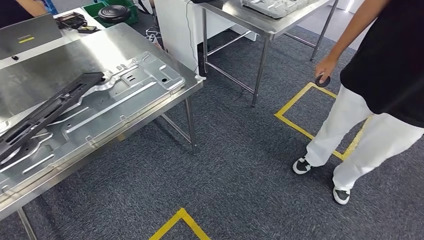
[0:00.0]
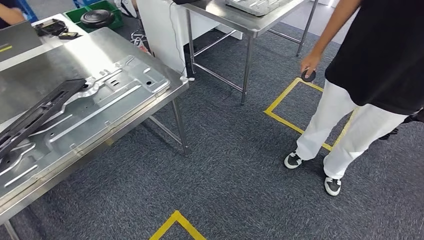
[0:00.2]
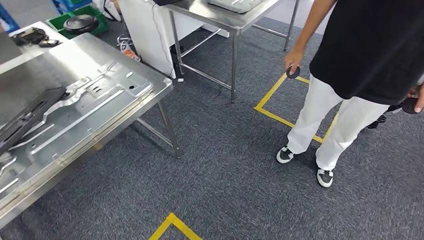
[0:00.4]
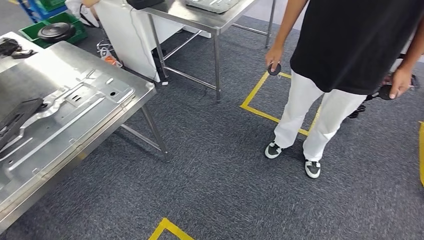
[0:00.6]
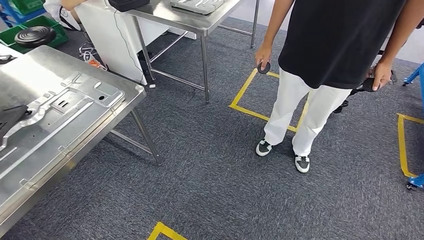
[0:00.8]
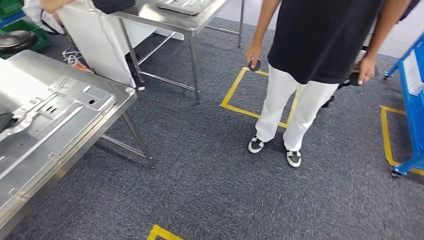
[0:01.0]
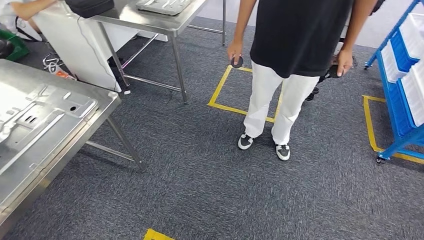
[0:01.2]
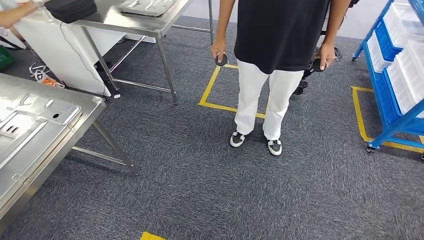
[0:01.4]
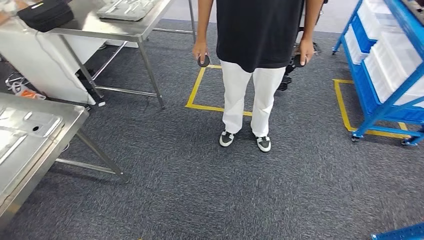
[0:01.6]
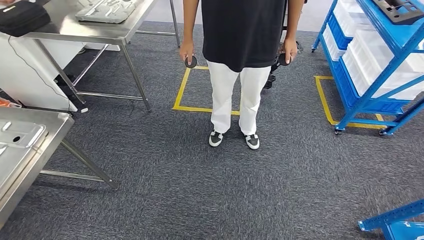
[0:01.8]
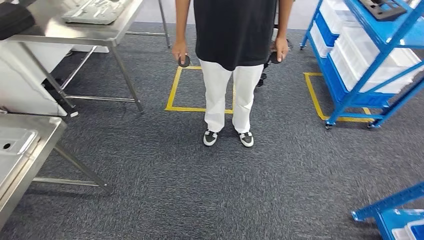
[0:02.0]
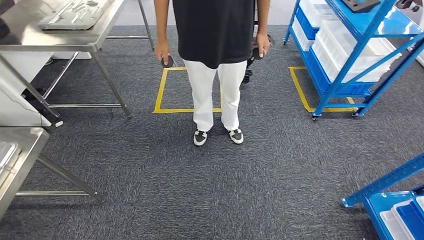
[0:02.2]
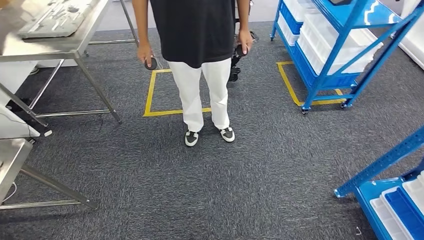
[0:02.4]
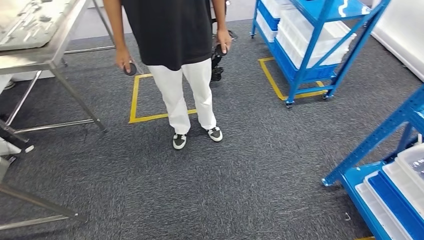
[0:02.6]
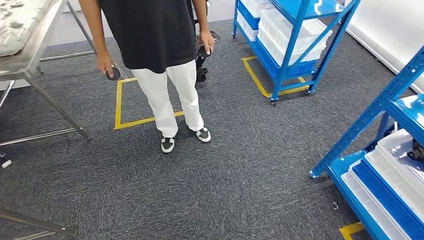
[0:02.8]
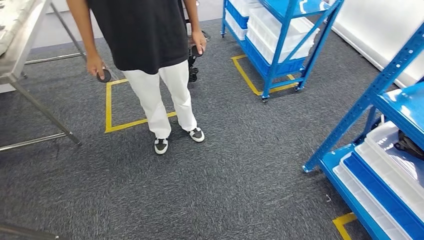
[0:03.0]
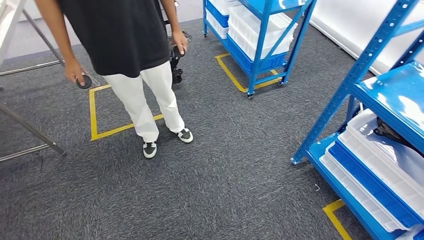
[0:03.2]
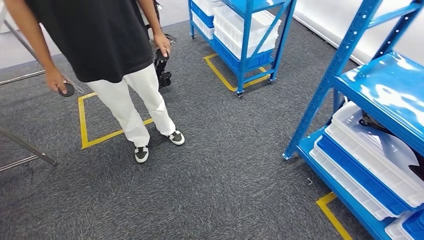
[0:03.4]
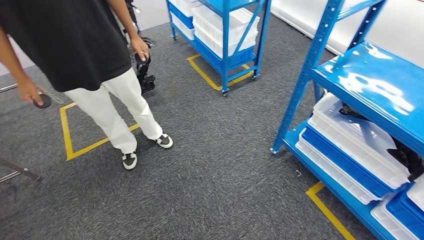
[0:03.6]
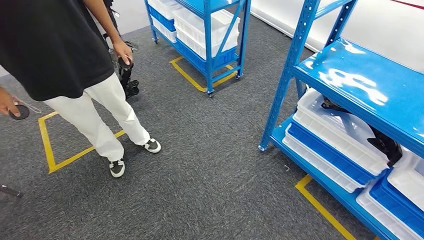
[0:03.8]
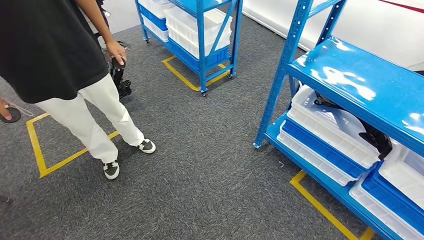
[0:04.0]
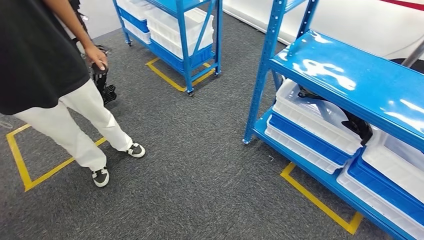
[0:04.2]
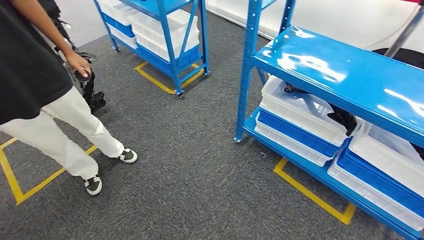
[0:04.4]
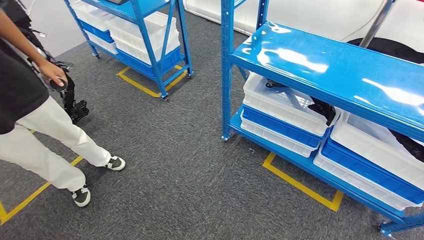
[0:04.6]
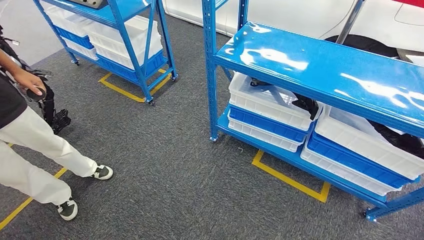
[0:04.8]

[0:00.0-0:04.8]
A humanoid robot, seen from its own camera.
Step, 0:00.0 to 0:04.8: Return to the initial position at the shelf.
